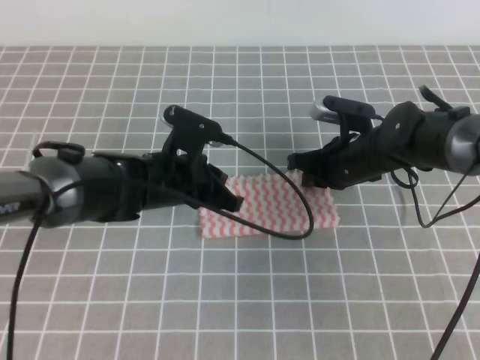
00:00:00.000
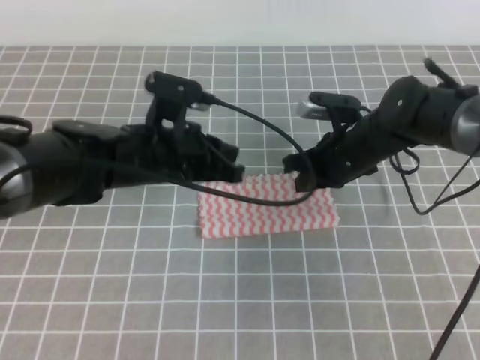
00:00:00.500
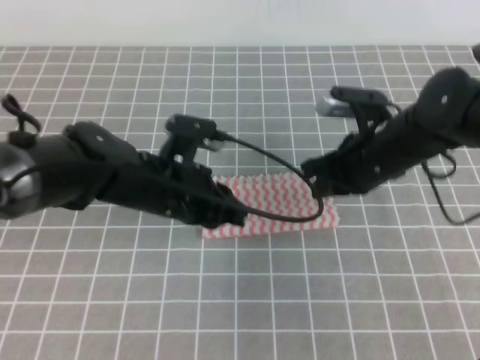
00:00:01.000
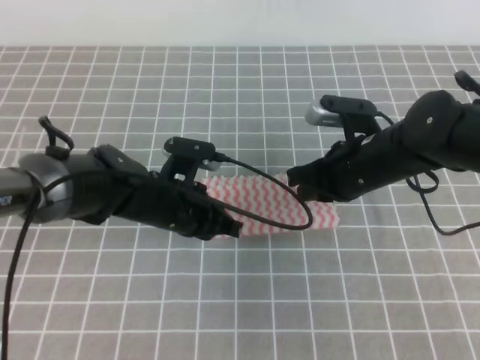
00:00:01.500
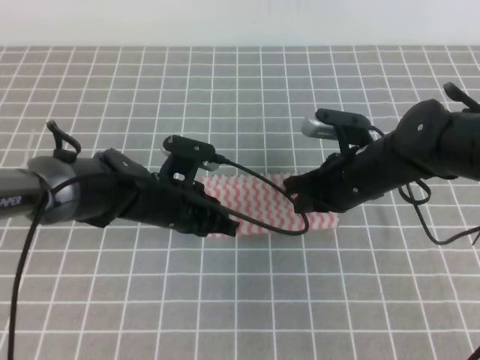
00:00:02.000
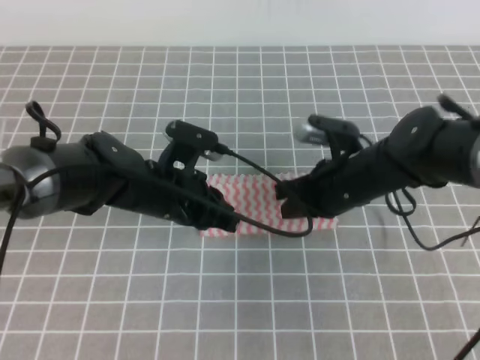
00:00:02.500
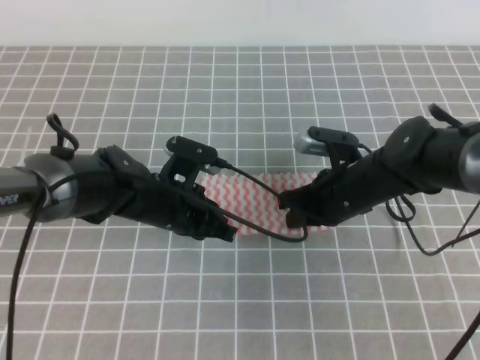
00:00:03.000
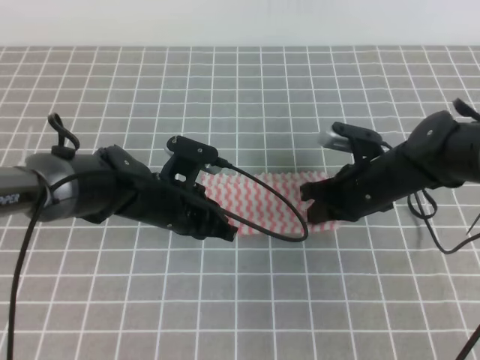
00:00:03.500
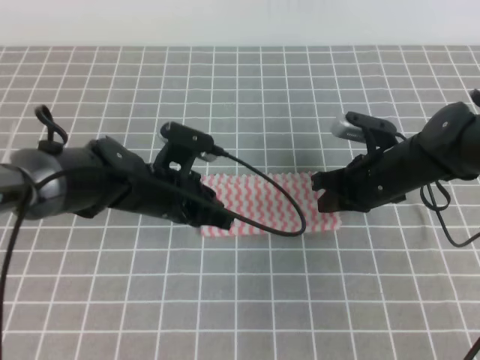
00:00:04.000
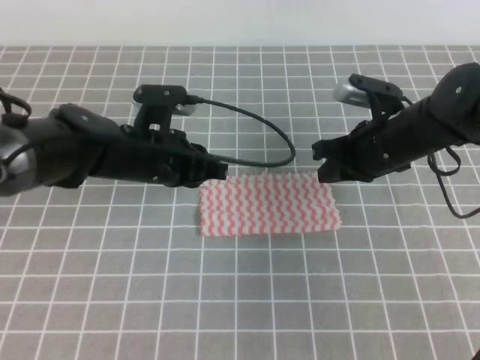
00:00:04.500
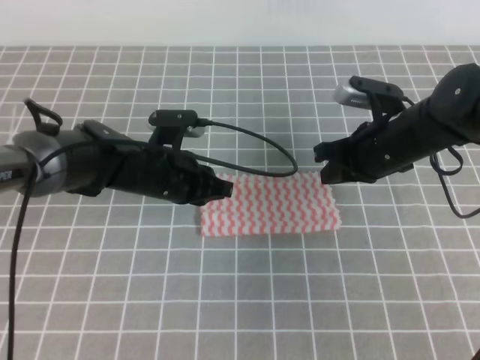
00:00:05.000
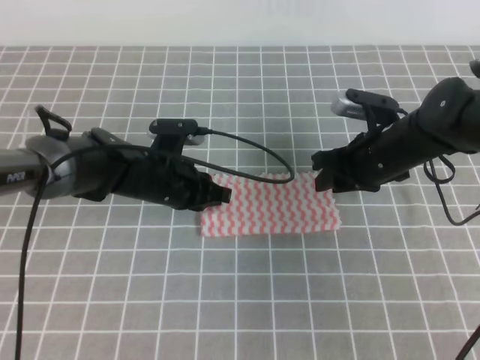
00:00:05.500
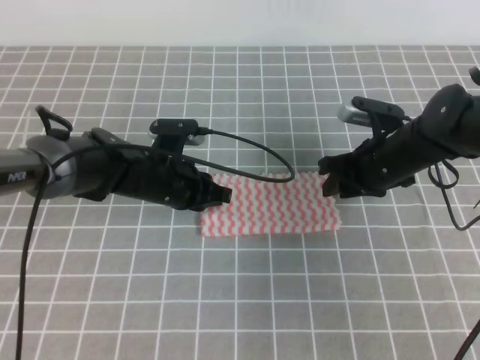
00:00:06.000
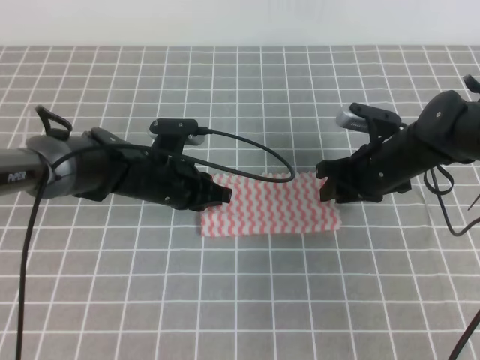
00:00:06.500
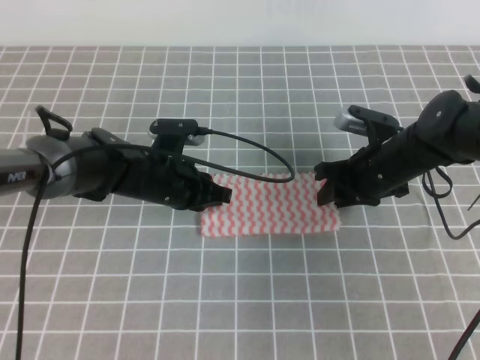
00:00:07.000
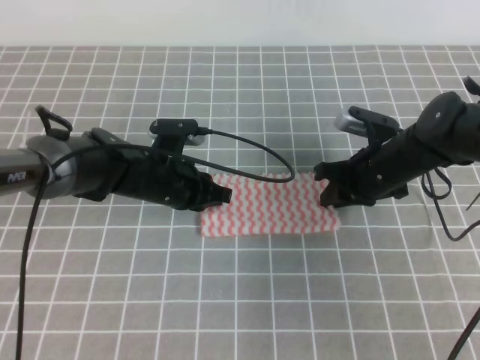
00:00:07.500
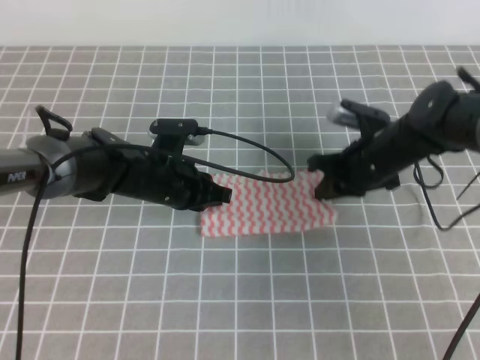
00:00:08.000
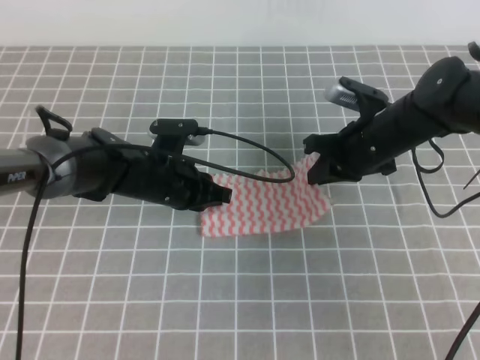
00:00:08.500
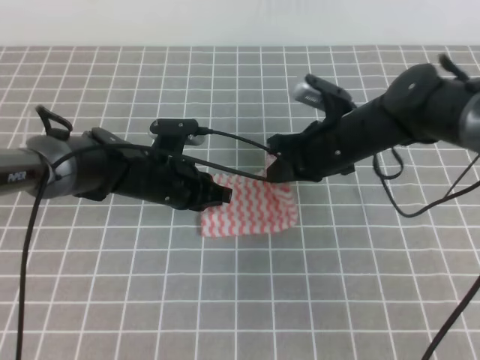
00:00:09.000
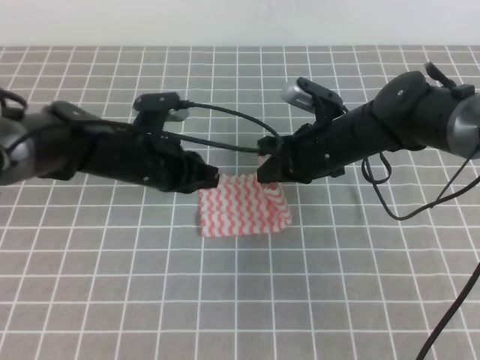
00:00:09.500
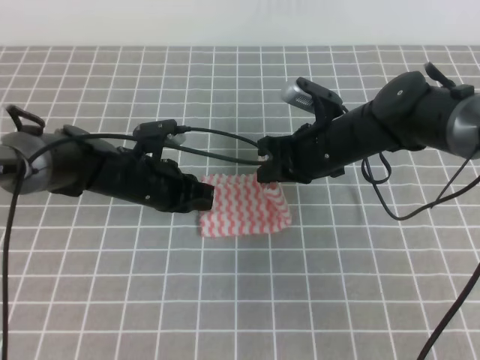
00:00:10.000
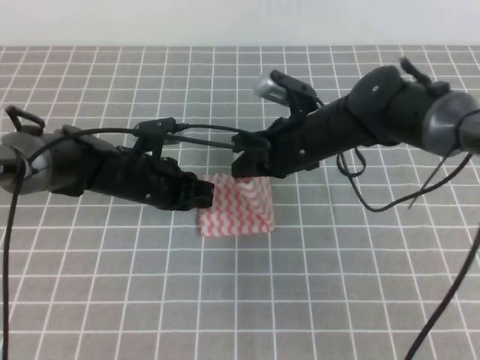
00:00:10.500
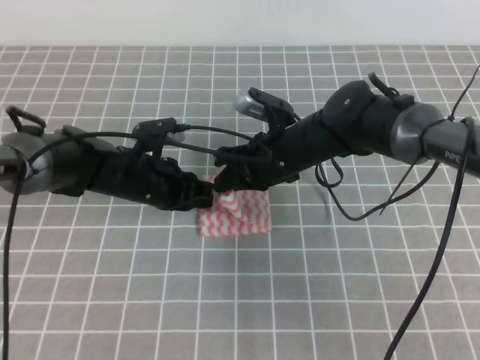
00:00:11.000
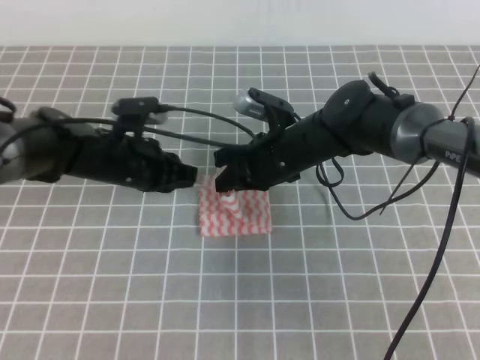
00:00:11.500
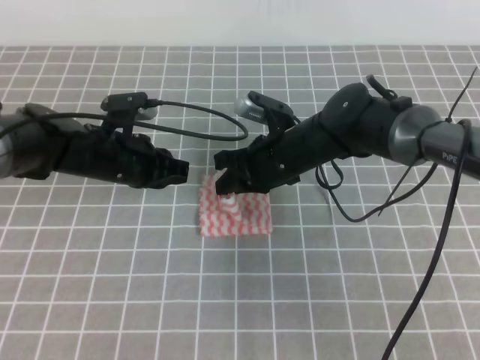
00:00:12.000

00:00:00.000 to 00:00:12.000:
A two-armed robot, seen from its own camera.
00:00:00.000 to 00:00:02.000: The right gripper moves backward, roughly 5 cm.
00:00:02.000 to 00:00:04.000: The right gripper moves about 5 cm.
00:00:04.000 to 00:00:06.000: The right gripper opens up.
00:00:06.000 to 00:00:08.000: The right gripper closes its fingers.
00:00:08.000 to 00:00:10.000: The right gripper heads to the left, covering some 5 cm.
00:00:10.000 to 00:00:12.000: The right gripper is displaced to the left by about 5 cm.

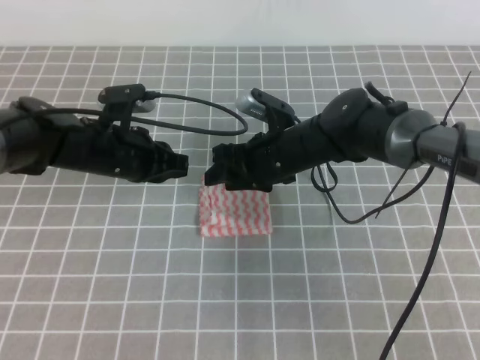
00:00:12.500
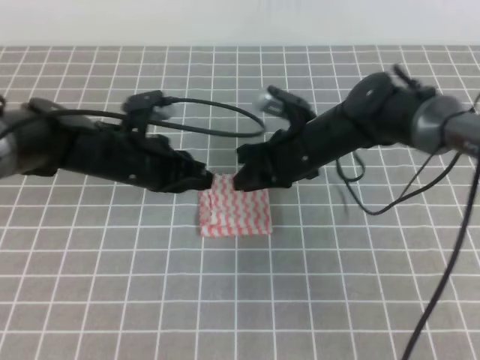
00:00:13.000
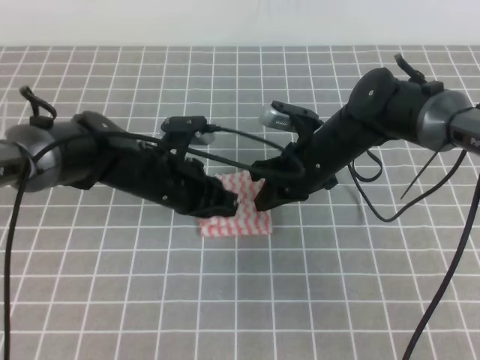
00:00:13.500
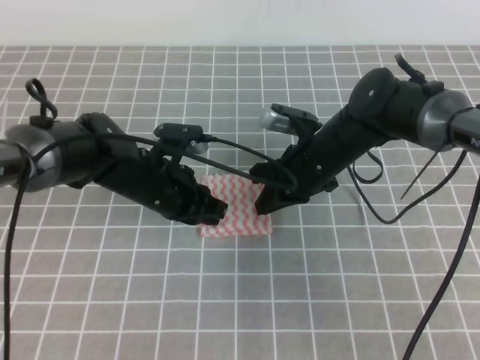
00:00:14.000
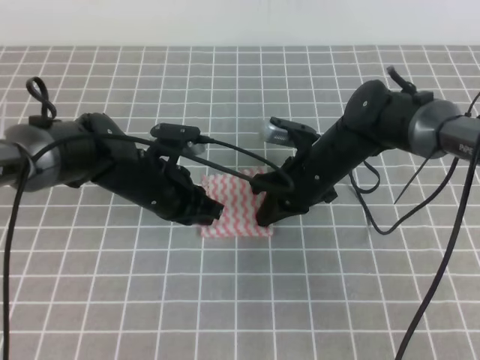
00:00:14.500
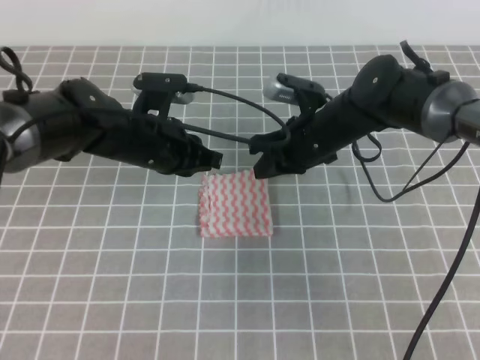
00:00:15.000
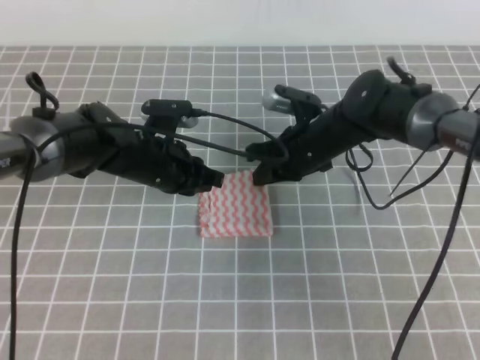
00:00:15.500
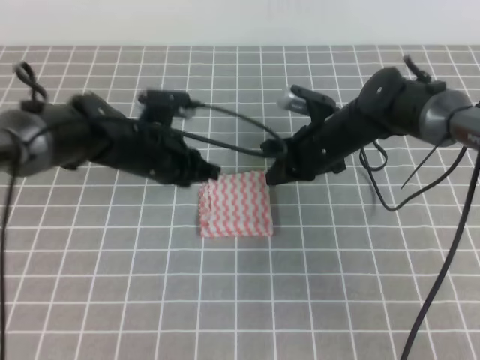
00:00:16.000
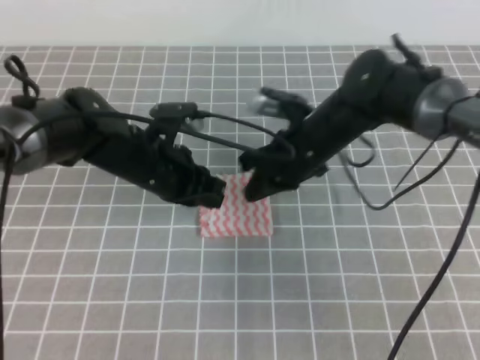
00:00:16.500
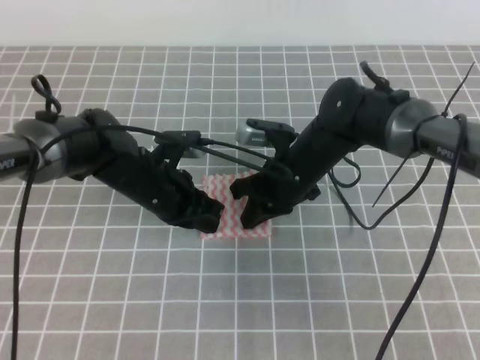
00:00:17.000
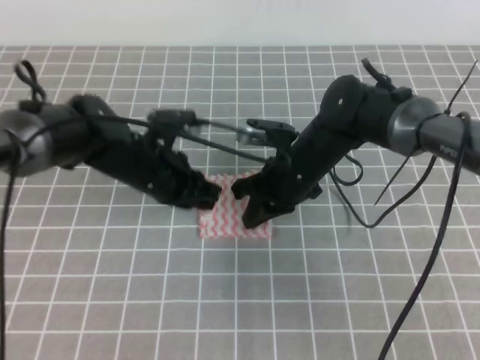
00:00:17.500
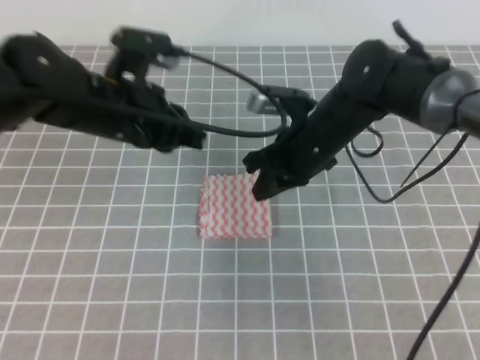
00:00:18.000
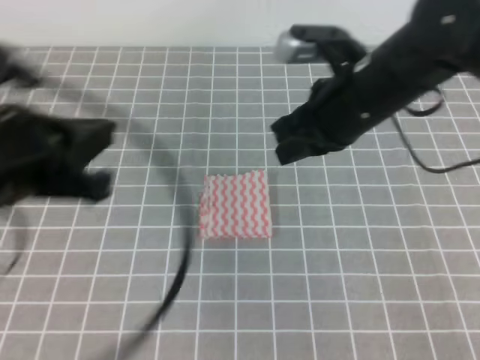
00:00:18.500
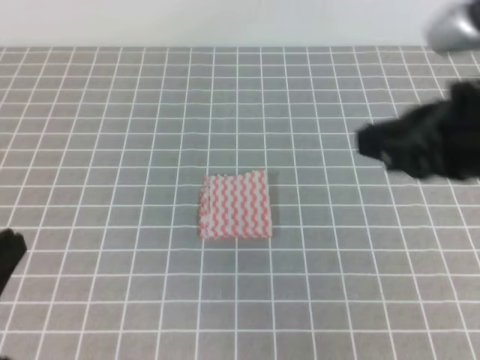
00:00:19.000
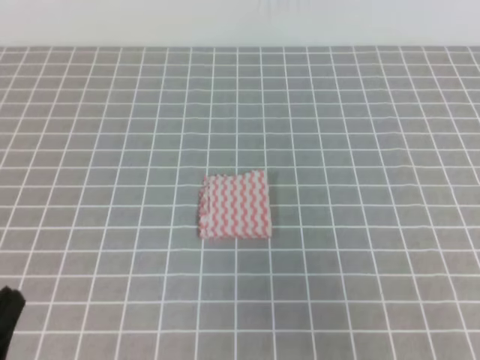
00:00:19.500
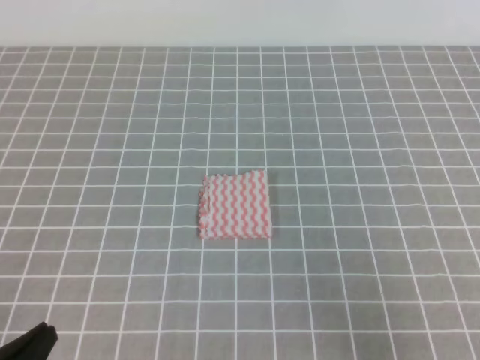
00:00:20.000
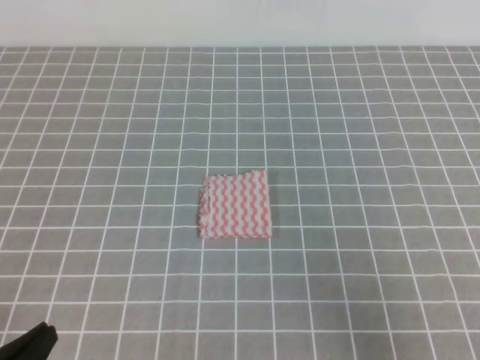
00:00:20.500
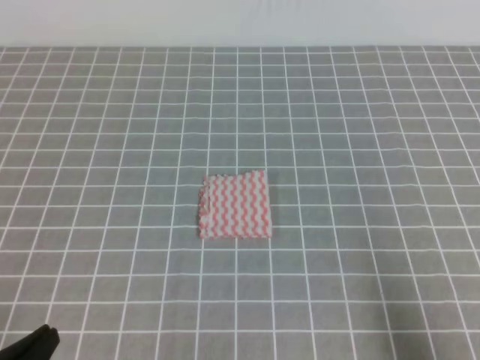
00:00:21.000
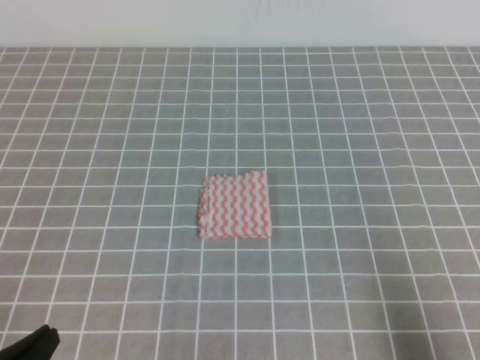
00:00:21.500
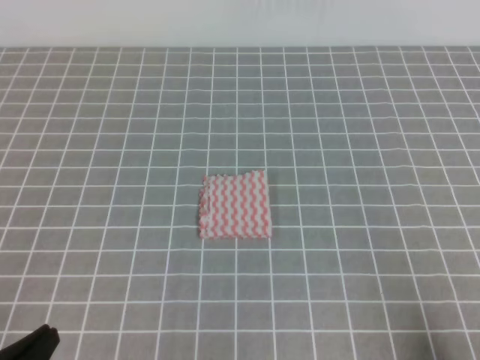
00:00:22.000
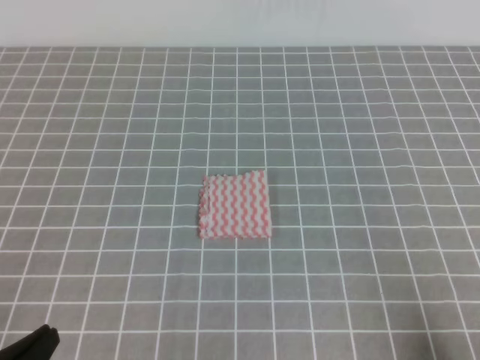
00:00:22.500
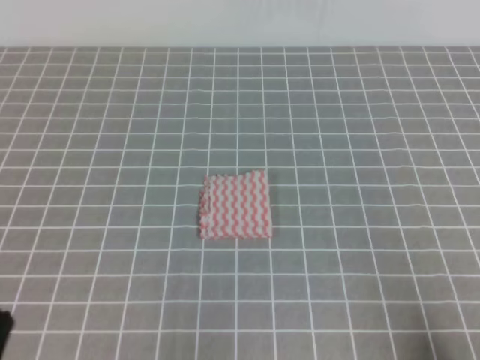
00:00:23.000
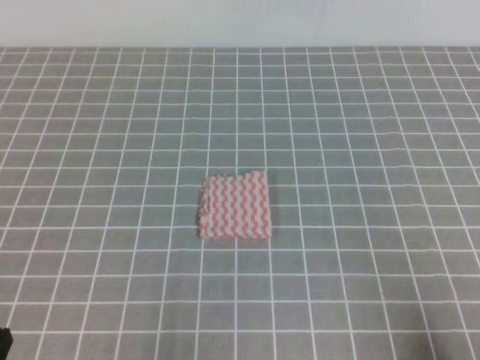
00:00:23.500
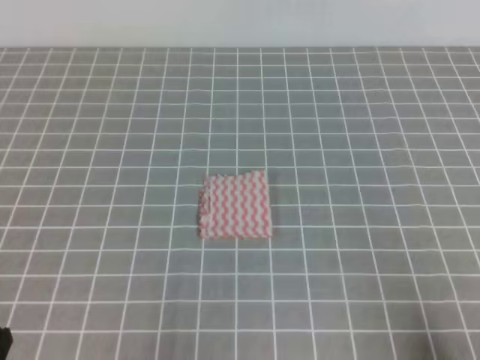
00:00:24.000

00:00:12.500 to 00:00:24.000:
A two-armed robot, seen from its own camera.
Step, 00:00:12.500 to 00:00:24.000: Fold the towel.
00:00:12.500 to 00:00:14.500: The right gripper closes its fingers. The left gripper moves about 5 cm.
00:00:16.500 to 00:00:18.500: The left gripper heads backward, upward and to the left, covering roughly 25 cm. The right gripper heads upward and backward, covering approximately 15 cm.
00:00:18.500 to 00:00:20.000: The right gripper is displaced backward and to the right by roughly 30 cm. Meanwhile the left gripper heads downward and backward, covering approximately 20 cm.
00:00:20.000 to 00:00:22.000: The right gripper heads downward, covering about 5 cm.
